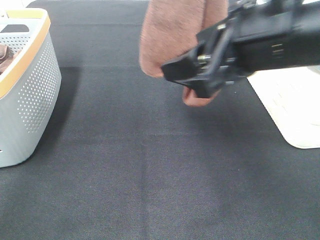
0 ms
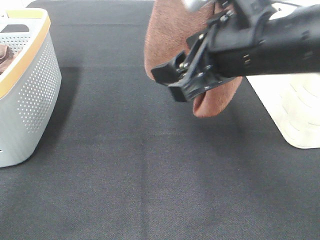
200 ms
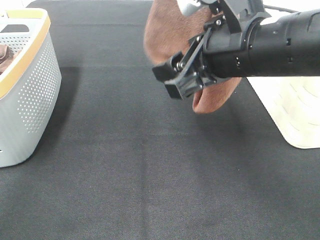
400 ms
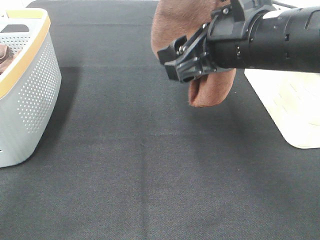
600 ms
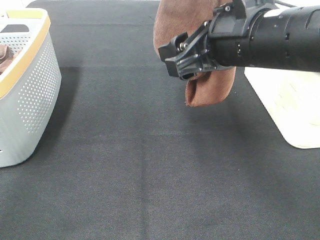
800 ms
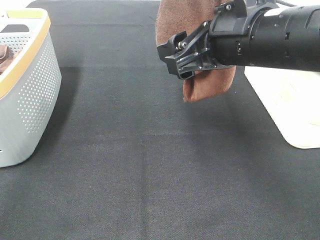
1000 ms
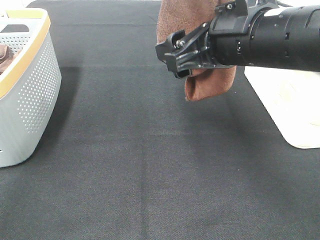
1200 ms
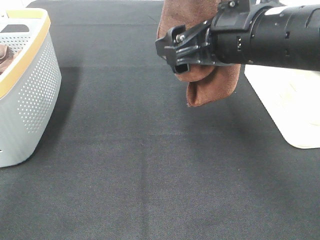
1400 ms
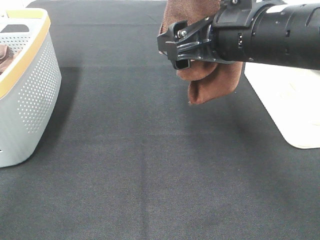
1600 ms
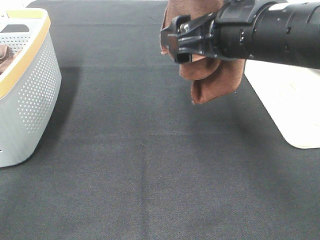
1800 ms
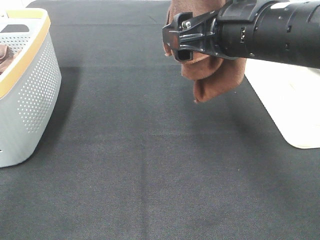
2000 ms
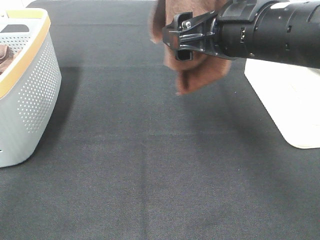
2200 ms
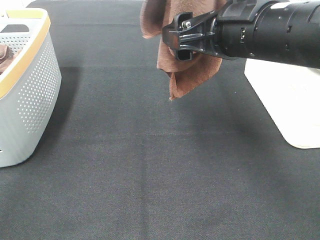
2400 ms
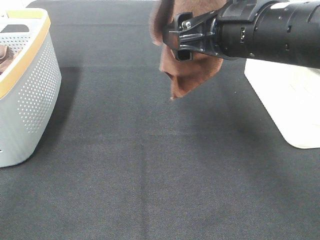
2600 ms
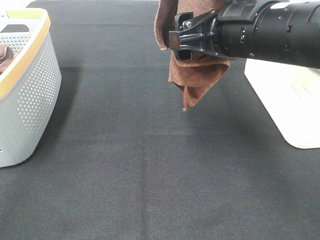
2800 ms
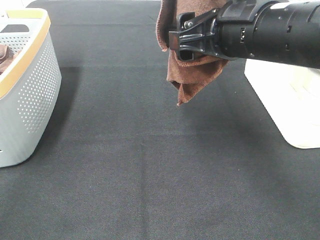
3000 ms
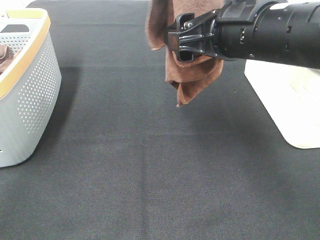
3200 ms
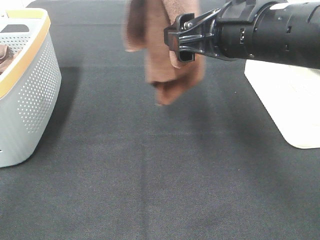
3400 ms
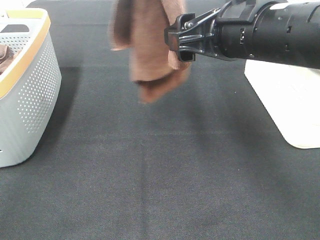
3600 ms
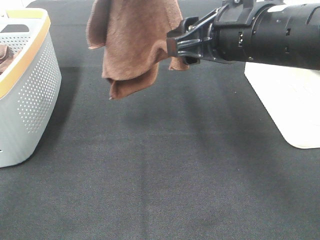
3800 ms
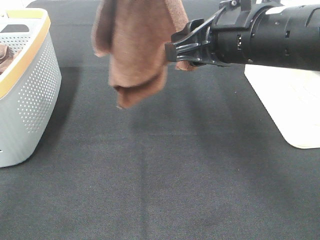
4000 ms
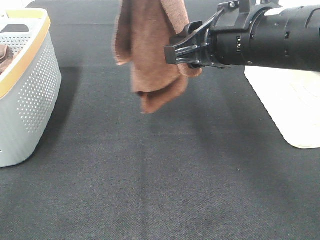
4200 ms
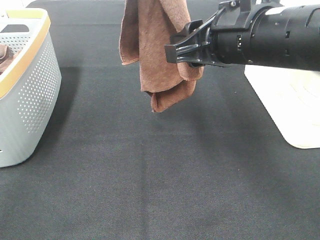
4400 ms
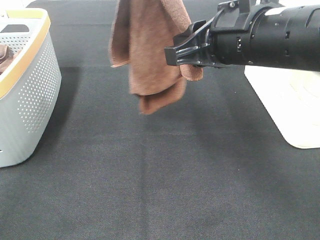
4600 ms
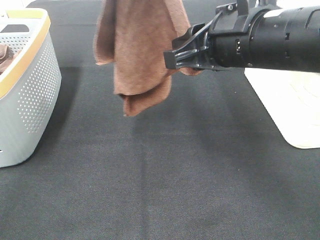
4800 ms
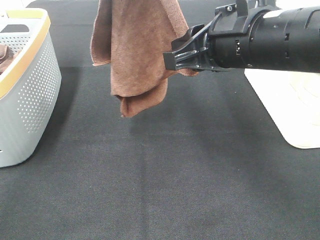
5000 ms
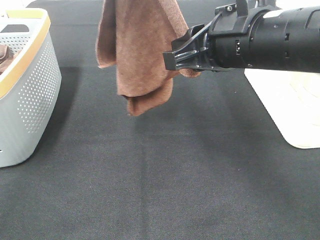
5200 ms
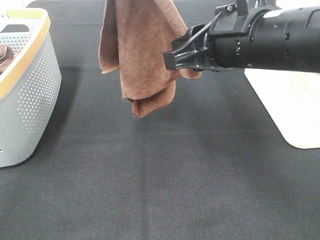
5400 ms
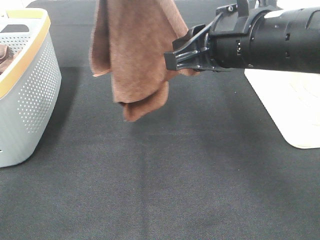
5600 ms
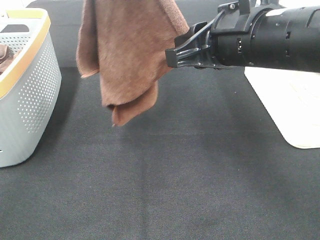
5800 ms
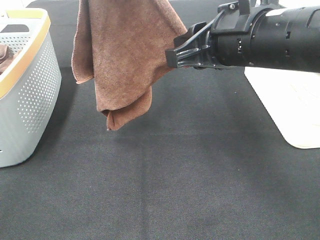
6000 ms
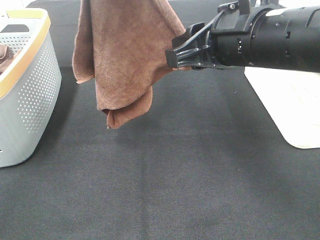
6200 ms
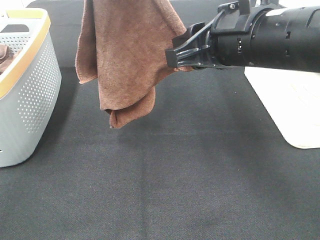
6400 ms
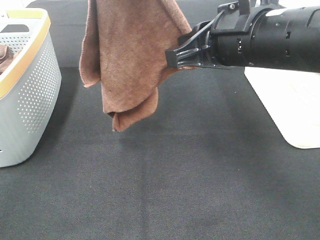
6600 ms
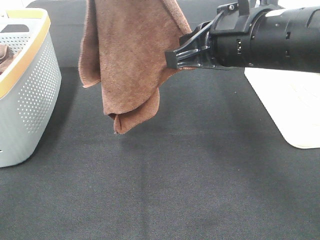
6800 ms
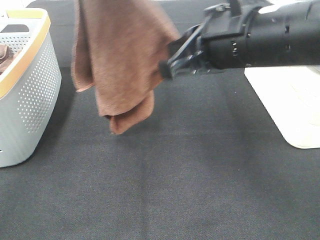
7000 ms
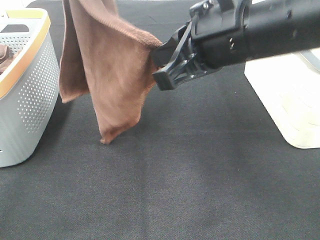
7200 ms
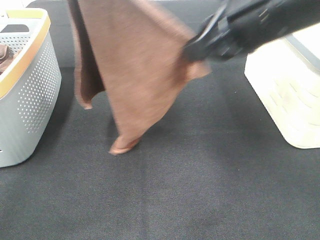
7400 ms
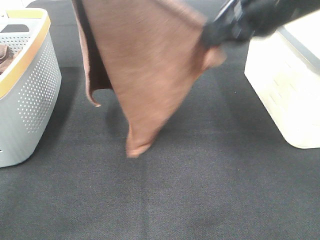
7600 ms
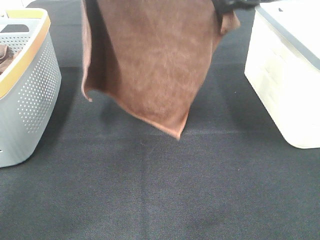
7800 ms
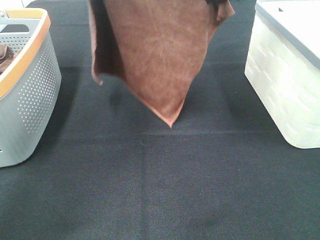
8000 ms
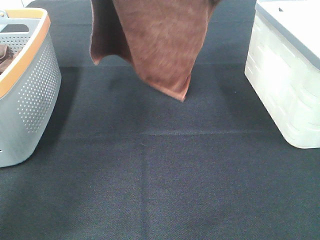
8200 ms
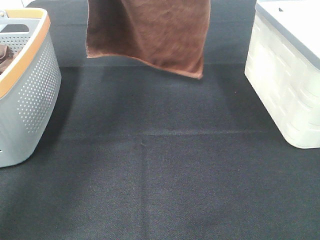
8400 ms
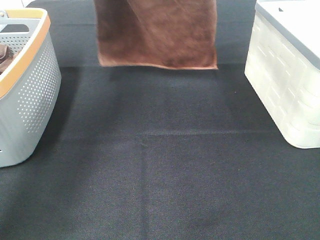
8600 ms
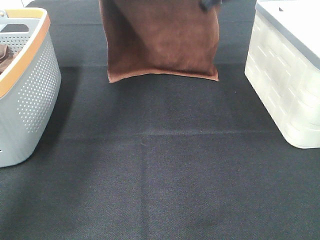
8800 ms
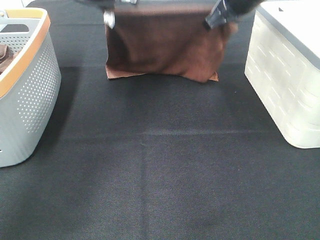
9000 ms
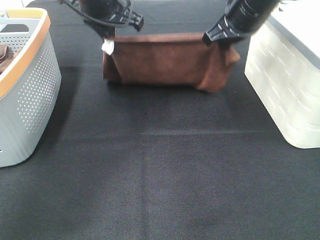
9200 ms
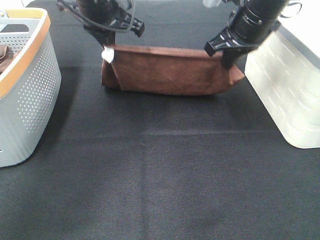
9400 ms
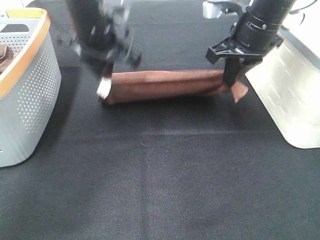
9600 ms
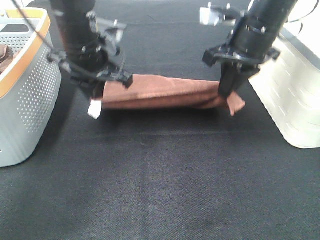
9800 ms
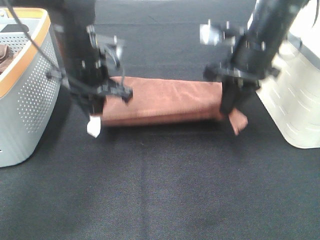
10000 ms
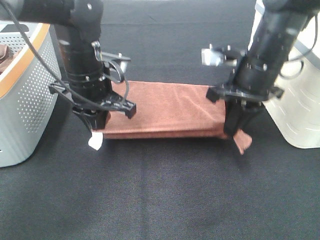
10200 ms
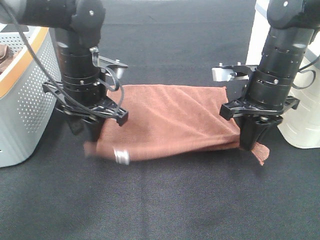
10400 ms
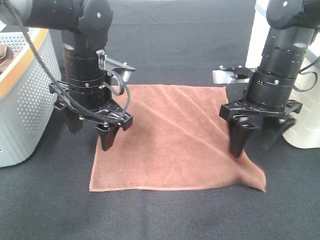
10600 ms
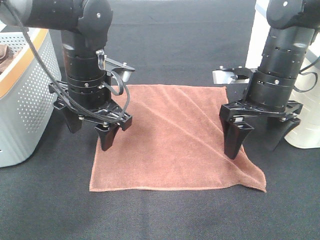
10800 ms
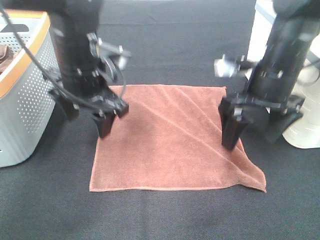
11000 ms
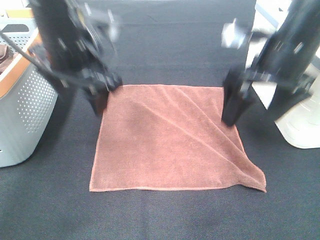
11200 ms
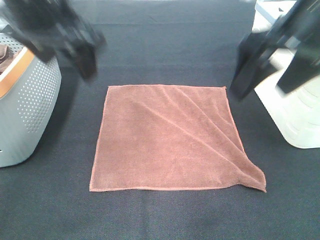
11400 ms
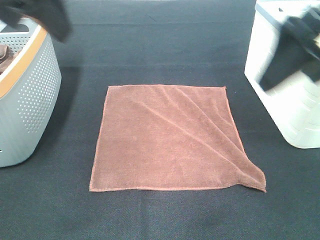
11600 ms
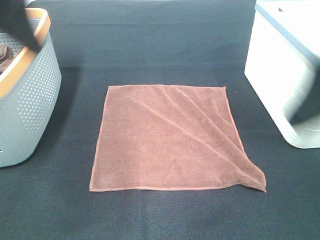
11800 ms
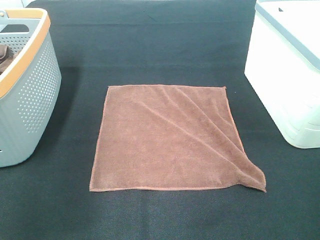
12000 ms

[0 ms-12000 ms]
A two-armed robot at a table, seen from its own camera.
Task of the whole recording: Remove the towel and place it.
Step, 0 ms to 4800 ms: Right hand: grab a corner of the brown towel and straighten it.
Step, 5000 ms to 6400 ms: Left hand: spread the brown towel flat on the table.
1600 ms to 3000 ms: The grippers make only small movements.
3000 ms to 4400 ms: The right gripper closes.
4400 ms to 6000 ms: There are only small adjustments of the grippers.
6000 ms to 7600 ms: The left gripper heads forward and downward, covering some 10 cm. Meanwhile the right gripper travels upward by approximately 5 cm, and closes up.
7600 ms to 9000 ms: The right gripper heads forward and downward, covering some 15 cm, while the left gripper travels downward and forward by about 20 cm.
9000 ms to 10400 ms: Both grippers travel together backward and downward, approximately 15 cm. The left gripper opens its fingers.
10400 ms to 12000 ms: The right gripper moves backward and upward, approximately 25 cm, and opens its fingers, while the left gripper travels backward, upward and to the left by approximately 25 cm, and opens up.

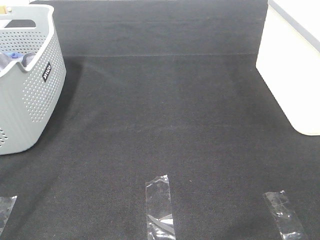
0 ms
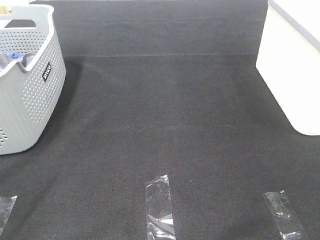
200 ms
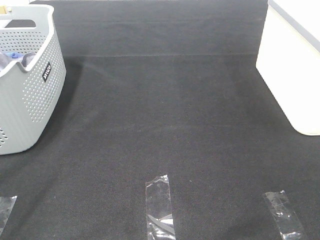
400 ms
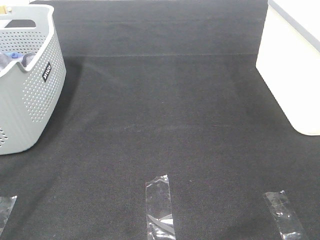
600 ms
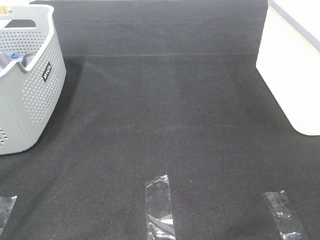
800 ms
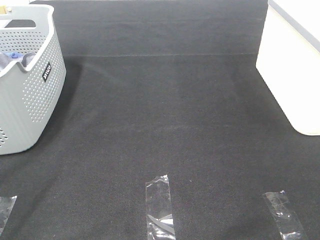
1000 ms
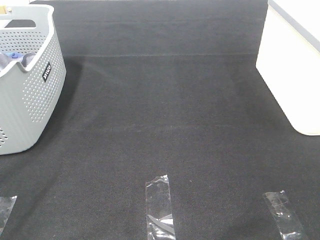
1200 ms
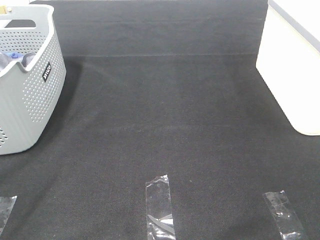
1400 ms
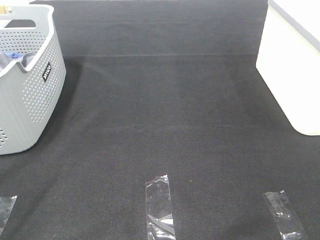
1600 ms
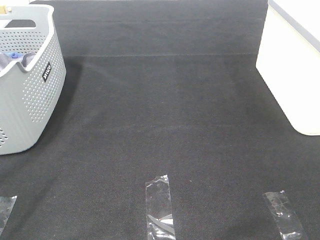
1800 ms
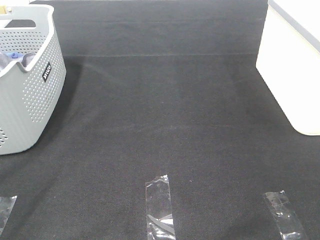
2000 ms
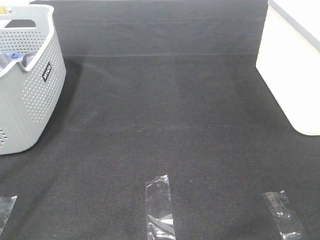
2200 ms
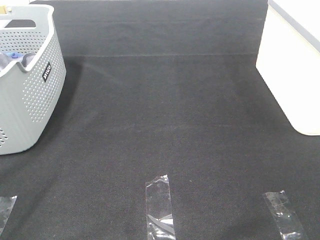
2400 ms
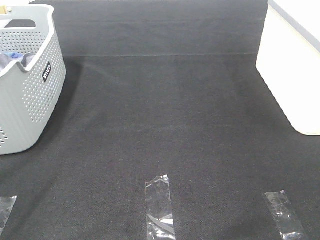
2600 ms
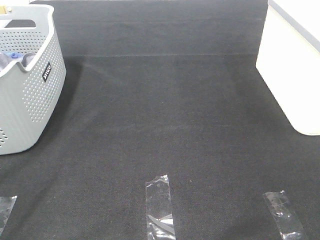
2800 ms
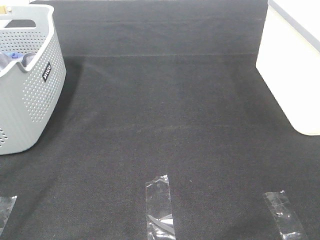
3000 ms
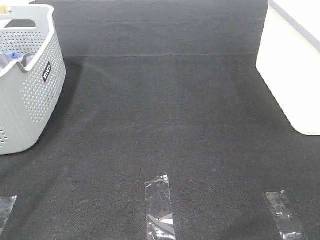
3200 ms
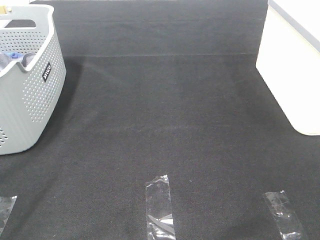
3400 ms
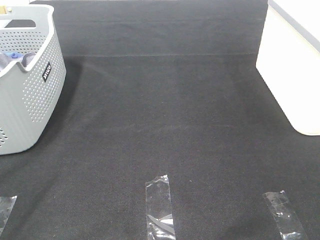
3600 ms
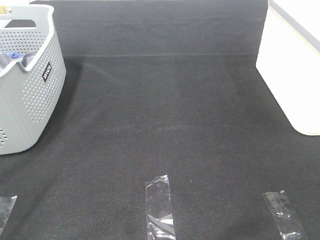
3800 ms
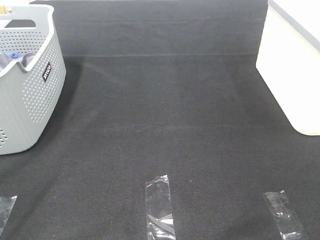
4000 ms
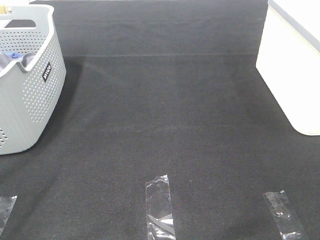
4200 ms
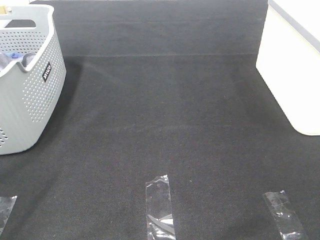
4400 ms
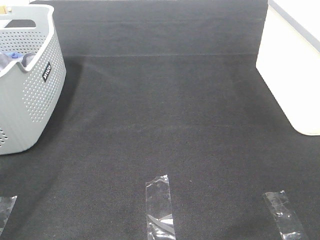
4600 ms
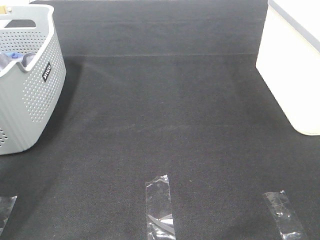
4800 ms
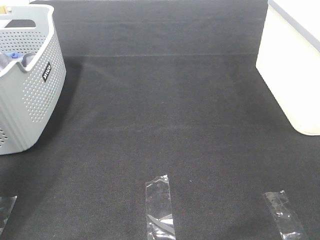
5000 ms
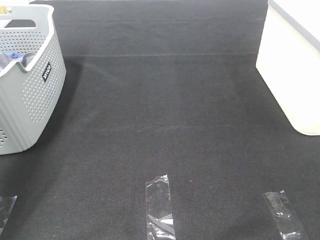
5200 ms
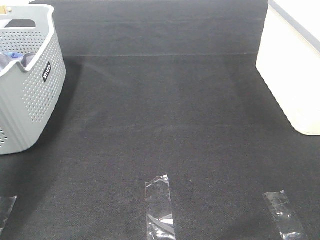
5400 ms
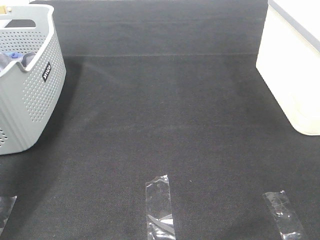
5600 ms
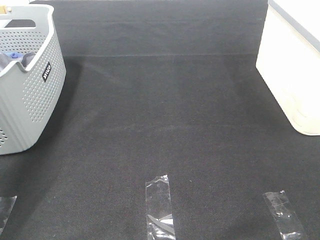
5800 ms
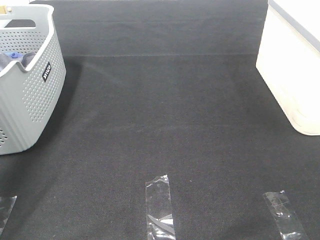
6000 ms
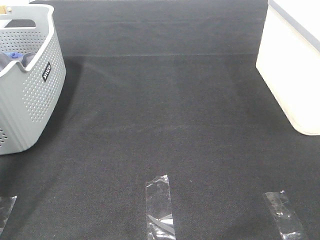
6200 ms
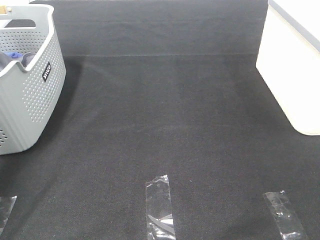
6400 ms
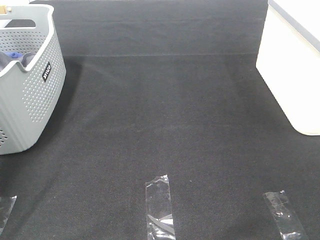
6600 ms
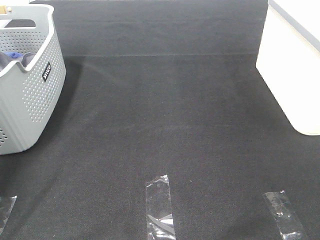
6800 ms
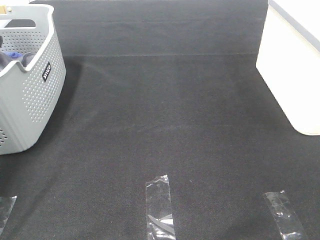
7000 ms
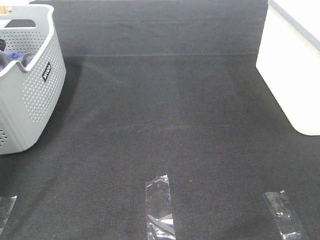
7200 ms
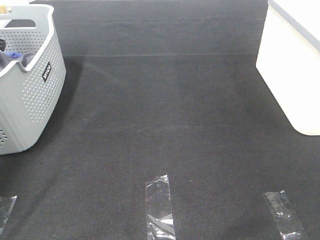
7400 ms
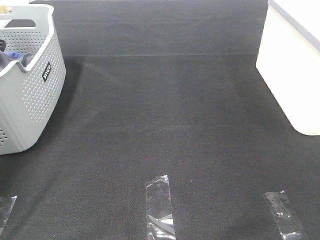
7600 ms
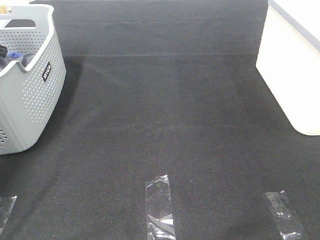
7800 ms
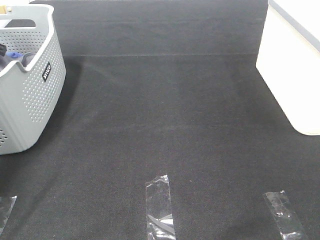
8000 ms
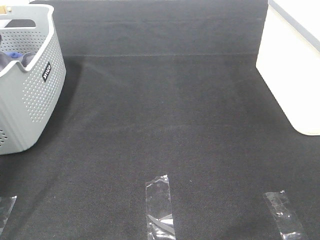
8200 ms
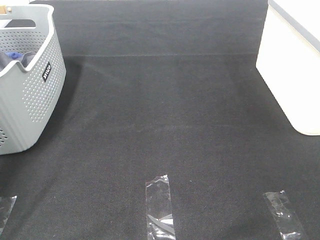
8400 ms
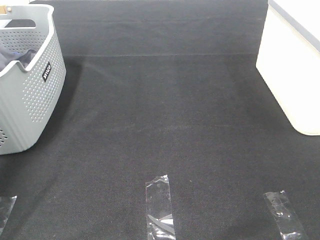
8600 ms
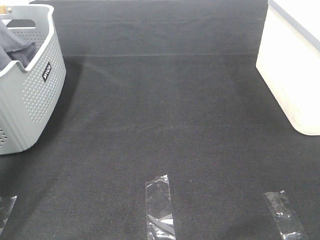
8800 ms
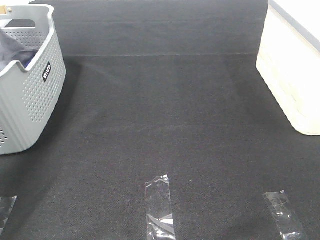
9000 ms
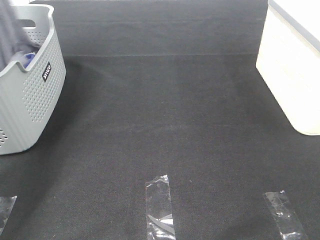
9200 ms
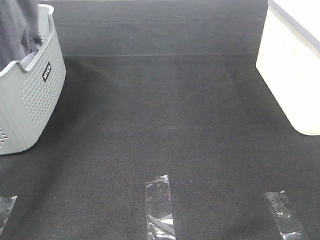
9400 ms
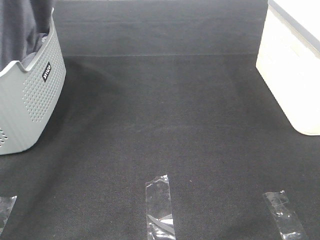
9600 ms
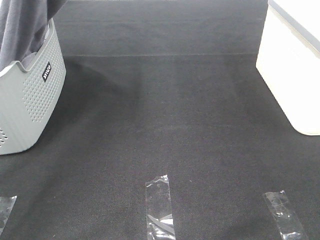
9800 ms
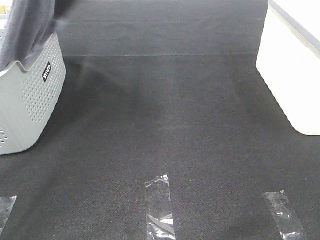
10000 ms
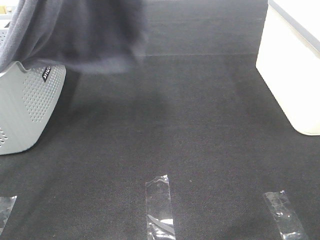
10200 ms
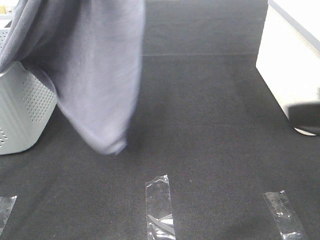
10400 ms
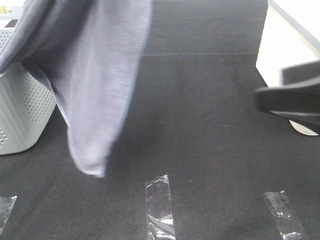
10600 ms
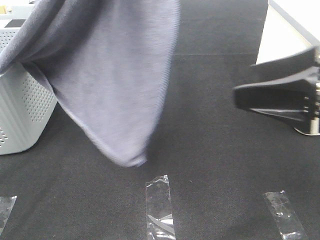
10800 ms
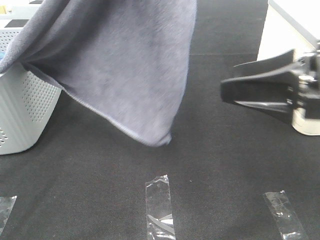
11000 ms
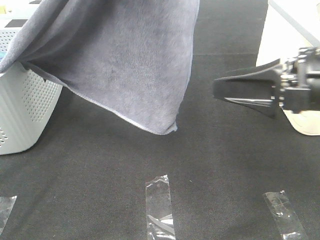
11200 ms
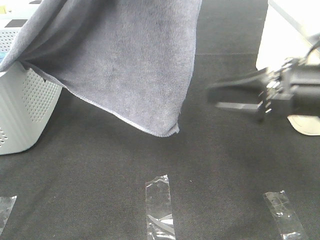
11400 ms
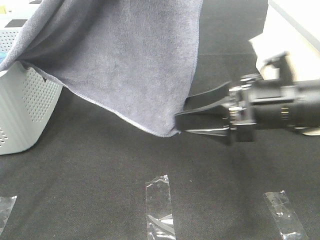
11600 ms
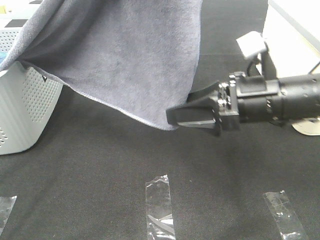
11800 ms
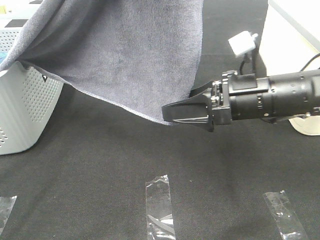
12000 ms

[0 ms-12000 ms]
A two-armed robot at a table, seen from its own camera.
Task of the whole recording: Remove the towel and place it.
0 ms to 3000 ms: Both grippers stay about where they are.
4400 ms to 6000 ms: The left gripper shifts about 40 cm forward.
6000 ms to 7600 ms: The left gripper moves downward and forward, roughly 15 cm, and closes.
7600 ms to 9000 ms: The left gripper travels upward by roughly 20 cm.
9000 ms to 10400 ms: The right gripper is displaced forward by approximately 15 cm; the left gripper travels to the right and backward by some 25 cm.
10400 ms to 12000 ms: The right gripper heads forward, downward and to the left, covering approximately 20 cm.
